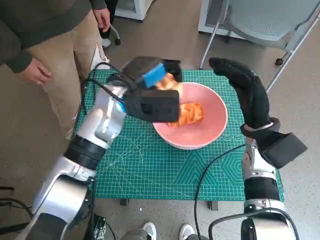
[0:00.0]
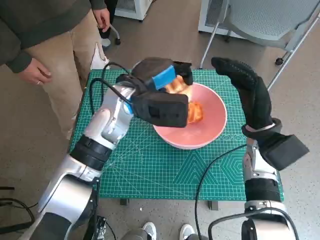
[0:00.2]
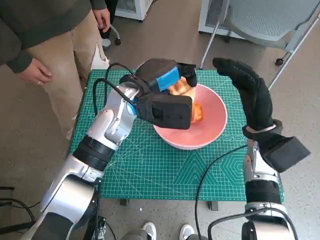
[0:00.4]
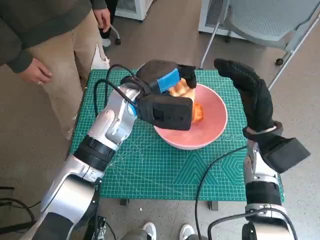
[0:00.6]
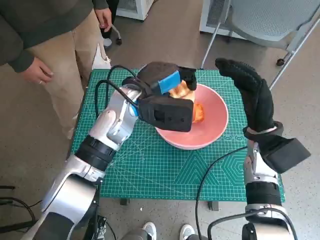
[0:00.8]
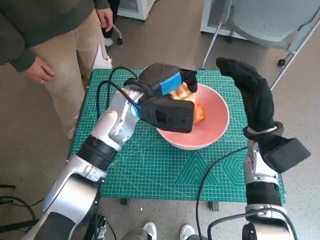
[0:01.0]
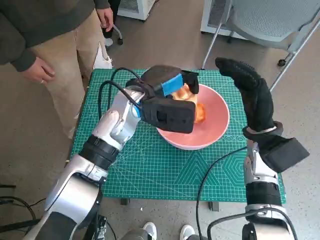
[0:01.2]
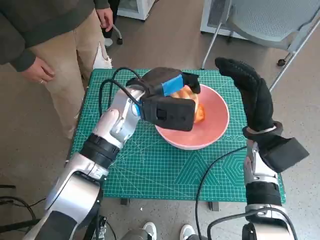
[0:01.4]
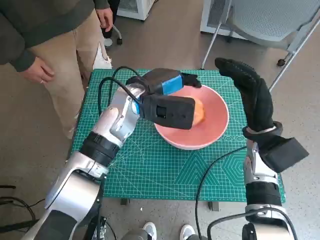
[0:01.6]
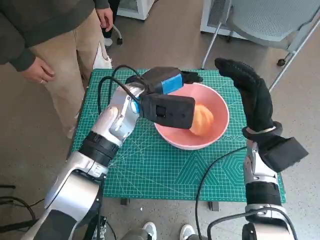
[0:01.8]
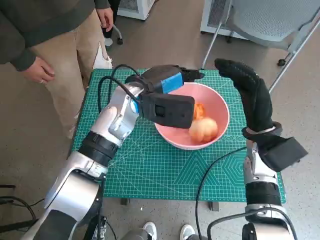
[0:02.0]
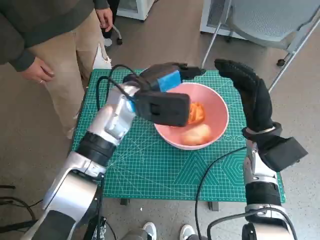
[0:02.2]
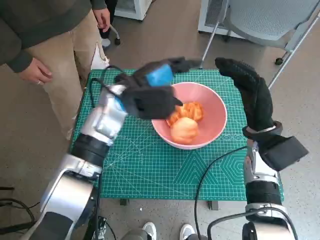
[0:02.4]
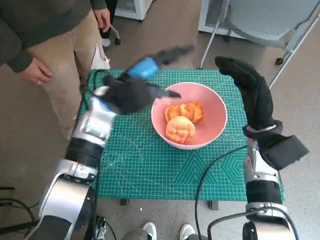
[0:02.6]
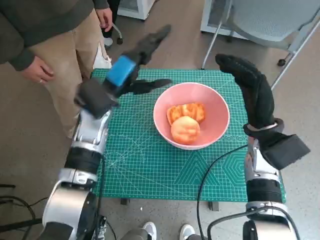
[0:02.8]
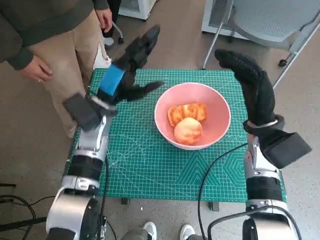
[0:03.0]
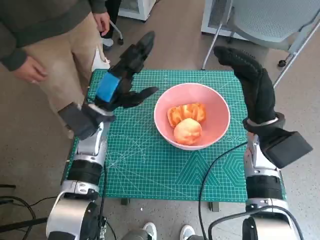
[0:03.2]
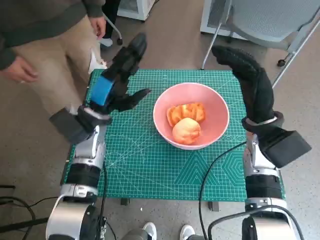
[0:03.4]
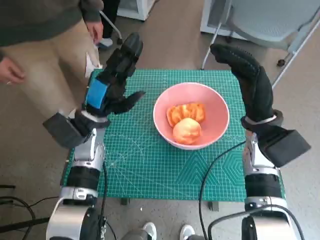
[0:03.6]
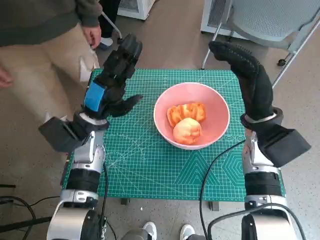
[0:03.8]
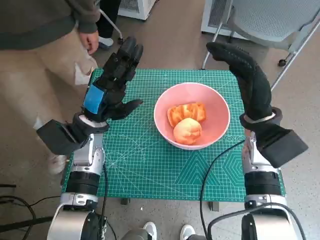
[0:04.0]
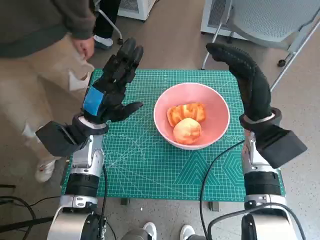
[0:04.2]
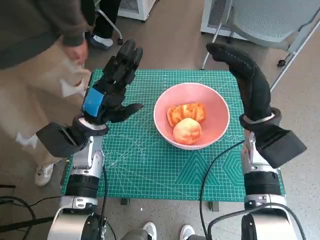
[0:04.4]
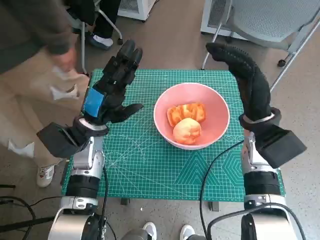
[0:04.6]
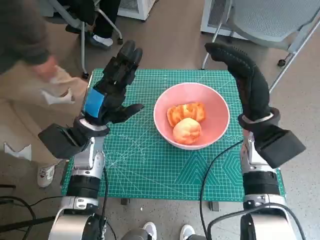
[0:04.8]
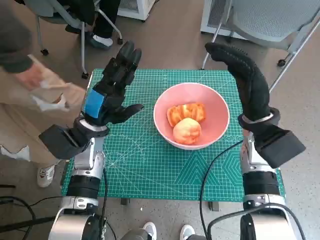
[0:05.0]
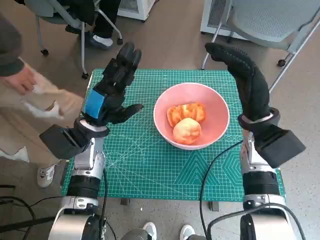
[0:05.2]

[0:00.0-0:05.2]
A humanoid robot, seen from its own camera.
0:01.8 to 0:03.4: The left hand moves to the left and downward, about 10 cm.

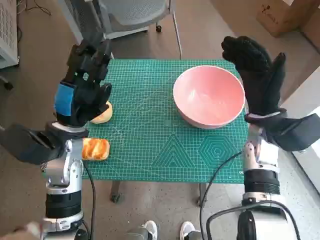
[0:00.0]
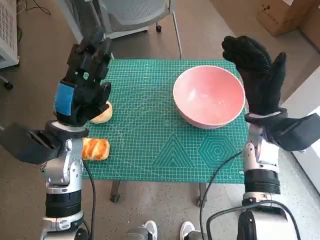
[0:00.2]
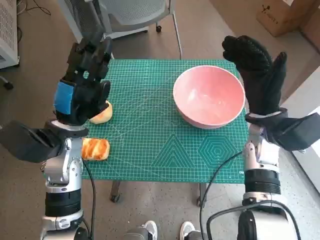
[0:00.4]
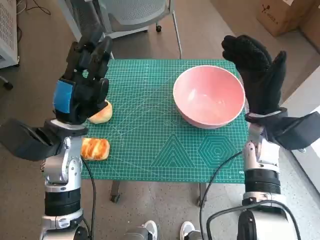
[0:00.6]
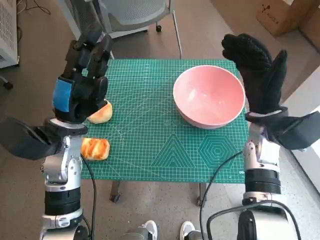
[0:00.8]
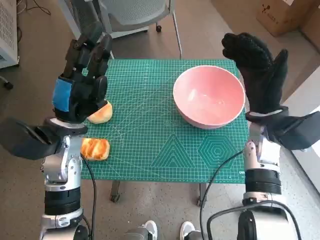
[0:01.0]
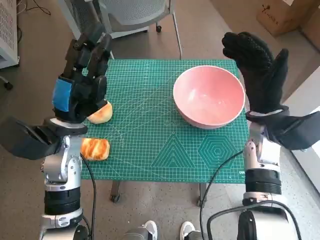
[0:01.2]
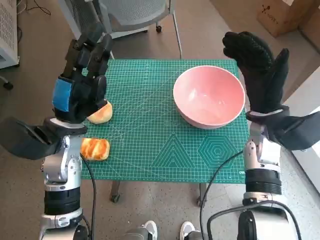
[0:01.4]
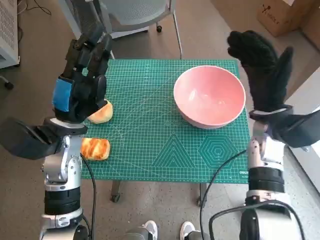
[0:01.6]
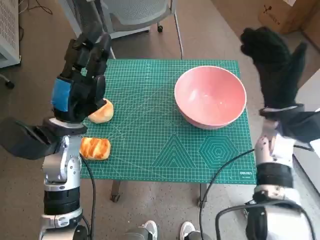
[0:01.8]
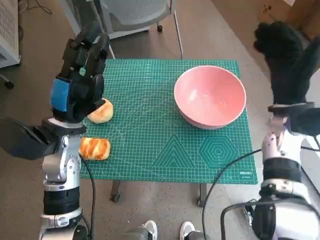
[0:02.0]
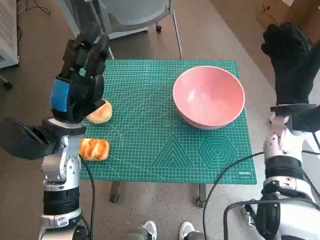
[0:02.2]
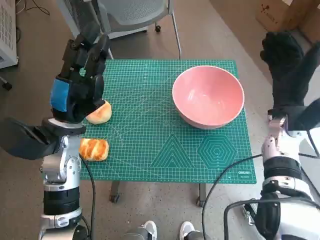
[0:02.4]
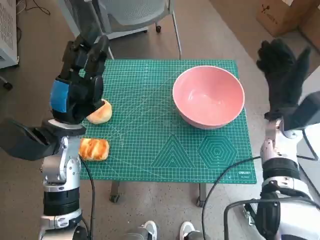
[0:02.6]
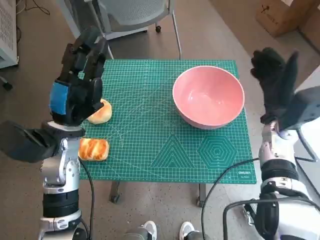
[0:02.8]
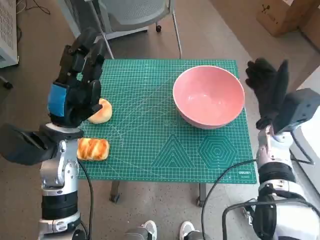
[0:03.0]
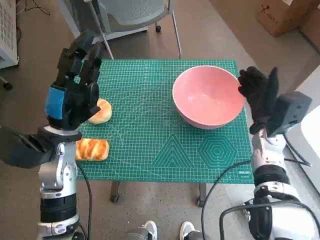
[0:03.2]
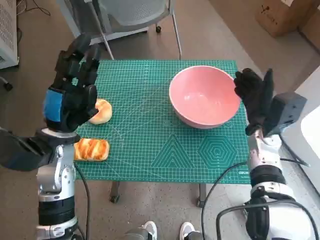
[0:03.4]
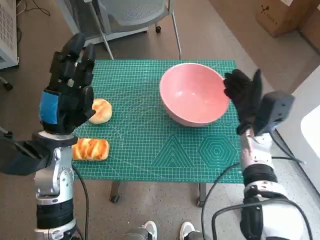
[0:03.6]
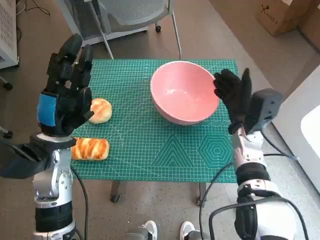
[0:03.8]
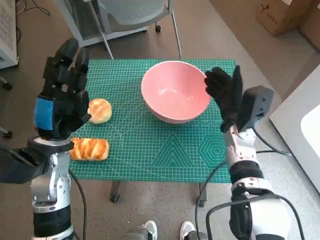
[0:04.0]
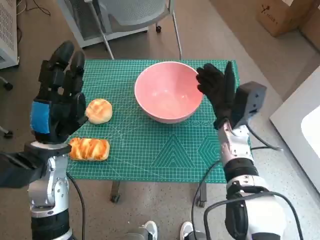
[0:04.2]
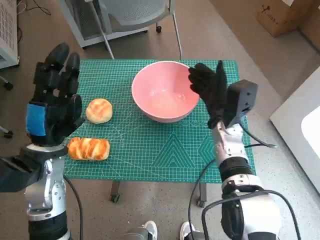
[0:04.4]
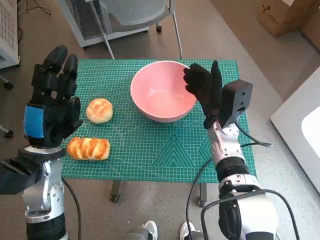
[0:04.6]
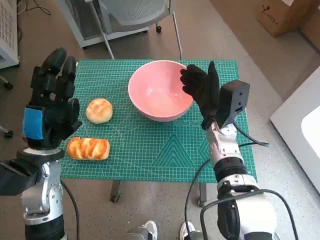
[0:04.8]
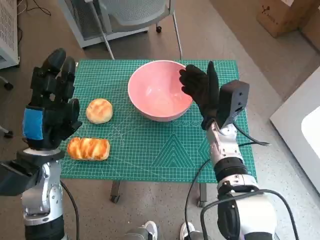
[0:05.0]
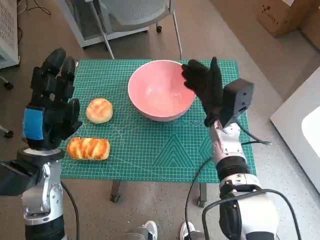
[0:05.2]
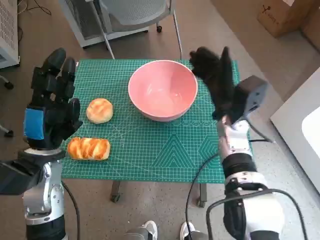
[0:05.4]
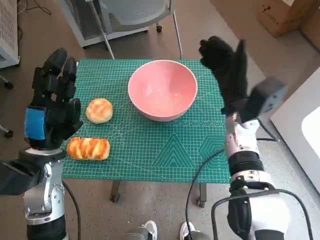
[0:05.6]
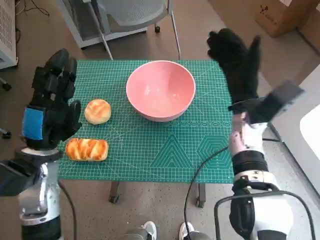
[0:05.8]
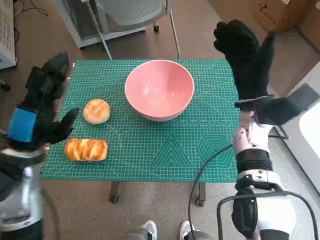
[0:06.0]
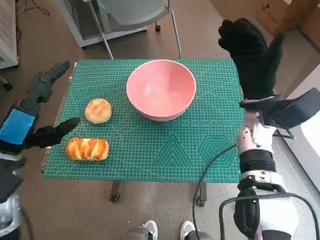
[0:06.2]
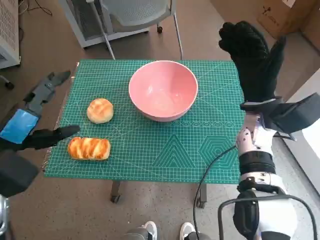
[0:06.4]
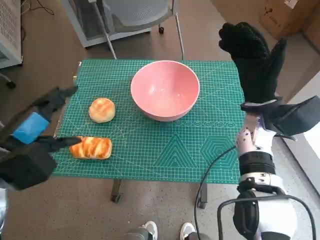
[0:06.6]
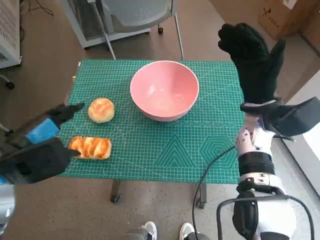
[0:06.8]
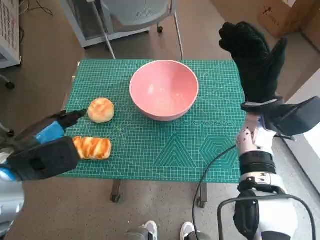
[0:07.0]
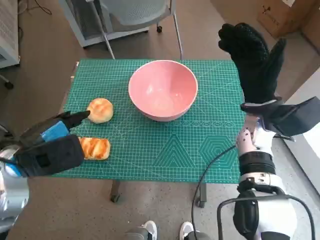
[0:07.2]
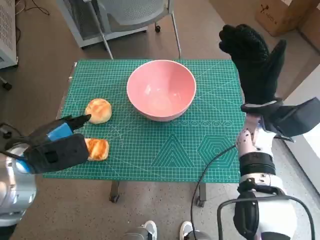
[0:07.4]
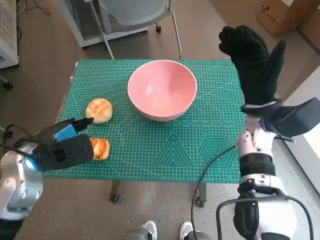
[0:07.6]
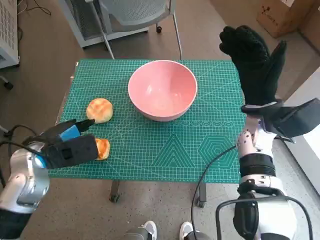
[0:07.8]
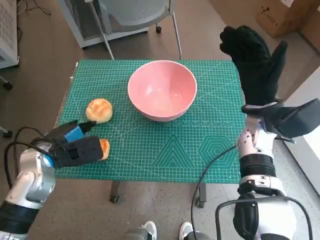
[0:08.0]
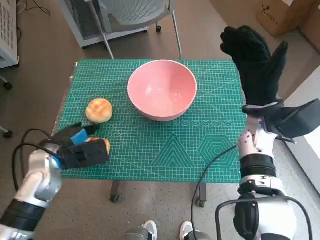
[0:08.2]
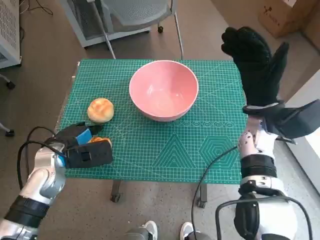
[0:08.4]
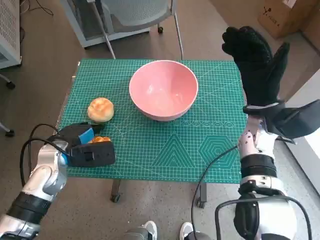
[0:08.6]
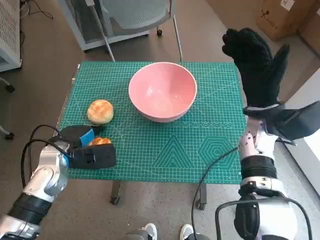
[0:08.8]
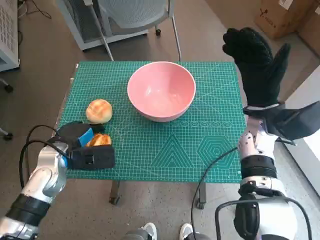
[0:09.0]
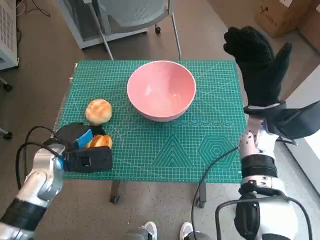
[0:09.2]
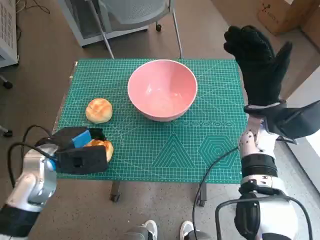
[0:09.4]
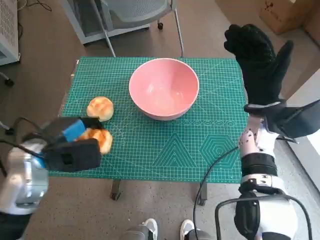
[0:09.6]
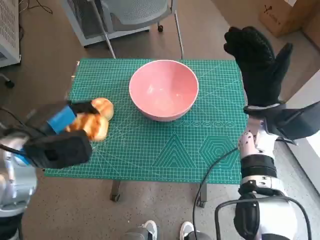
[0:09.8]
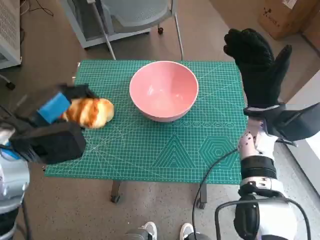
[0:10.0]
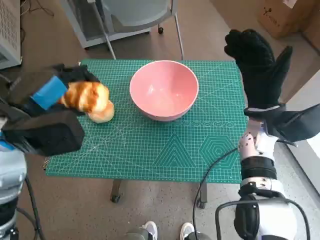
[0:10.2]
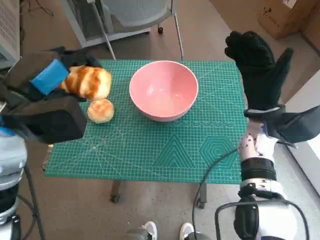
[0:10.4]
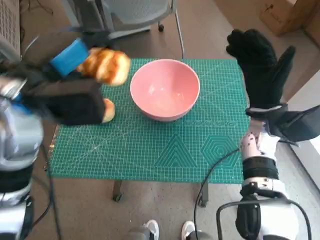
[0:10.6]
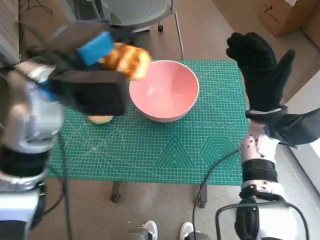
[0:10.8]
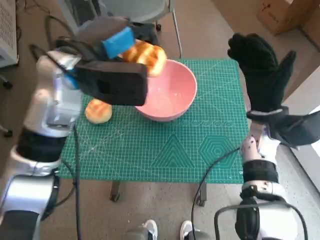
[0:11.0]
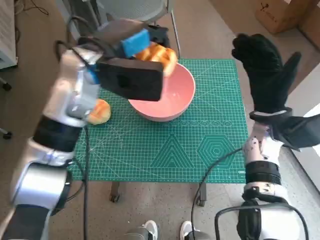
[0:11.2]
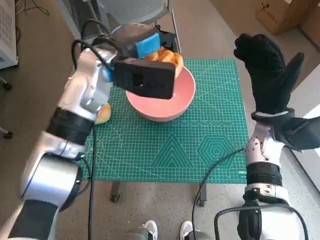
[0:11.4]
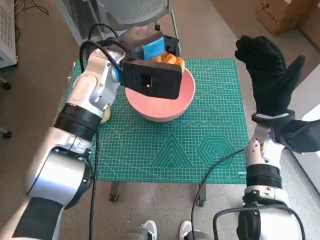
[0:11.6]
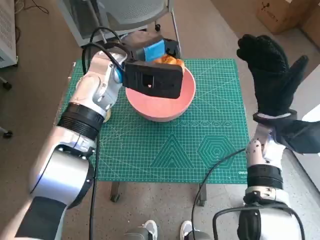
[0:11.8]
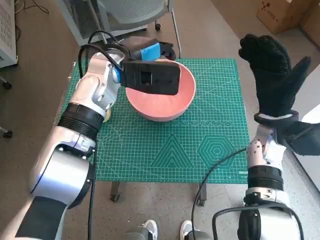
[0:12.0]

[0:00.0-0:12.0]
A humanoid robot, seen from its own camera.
Step, 0:00.0 to 0:05.0: Move the pink bowl to the center of table with right hand.
Step, 0:05.2 to 0:09.0: Grasp the long bread with left hand.
0:01.6 to 0:03.0: The right hand changes place by some 5 cm.
0:03.0 to 0:04.4: The right hand moves to the left, about 10 cm.
0:04.4 to 0:06.0: The right hand shifts some 5 cm upward.
0:07.6 to 0:09.0: The left hand is displaced downward by approximately 5 cm.
0:09.0 to 0:10.4: The left hand heads upward, covering approximately 15 cm.
0:10.4 to 0:12.0: The left hand moves forward and to the right, about 15 cm.

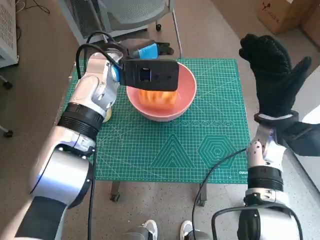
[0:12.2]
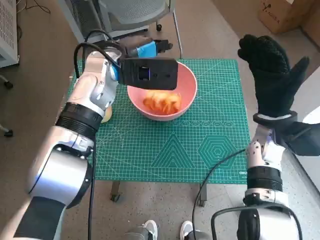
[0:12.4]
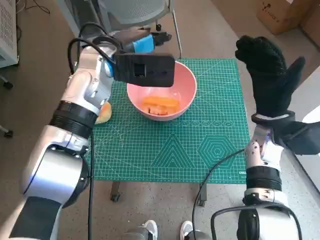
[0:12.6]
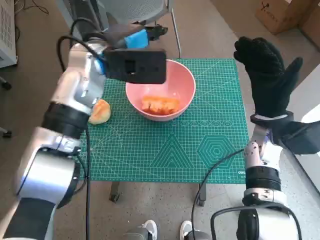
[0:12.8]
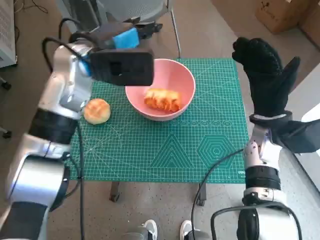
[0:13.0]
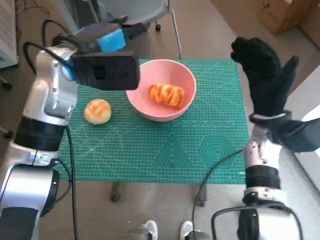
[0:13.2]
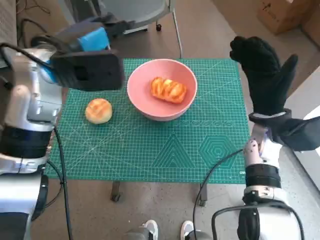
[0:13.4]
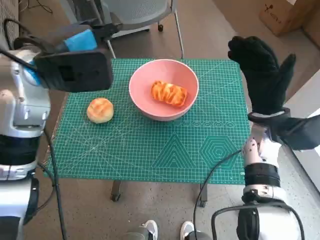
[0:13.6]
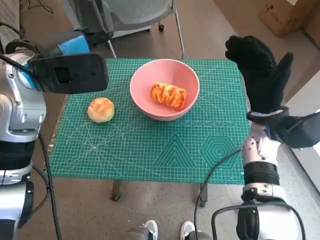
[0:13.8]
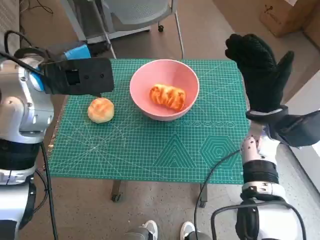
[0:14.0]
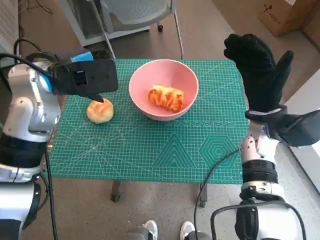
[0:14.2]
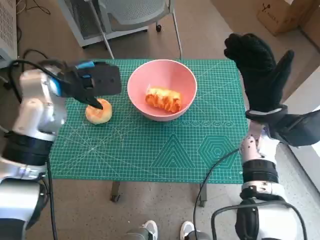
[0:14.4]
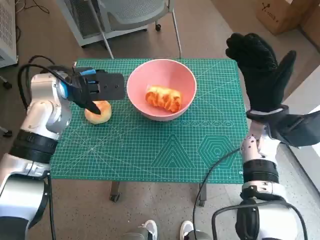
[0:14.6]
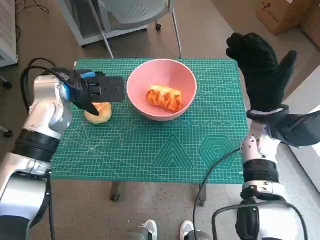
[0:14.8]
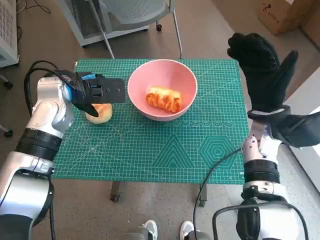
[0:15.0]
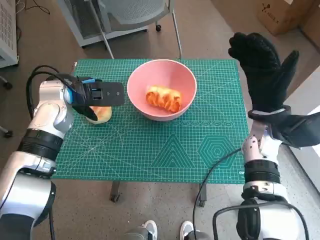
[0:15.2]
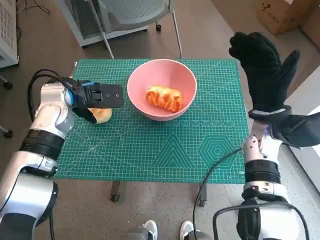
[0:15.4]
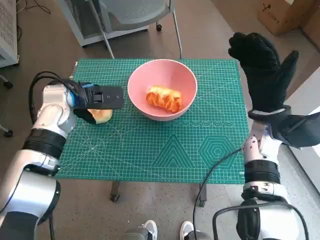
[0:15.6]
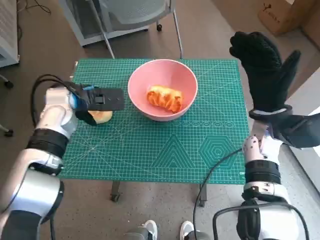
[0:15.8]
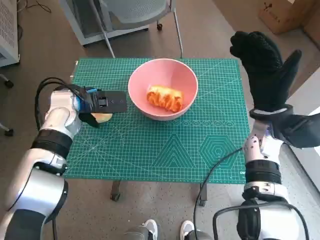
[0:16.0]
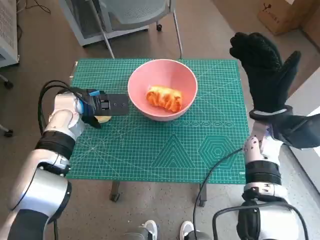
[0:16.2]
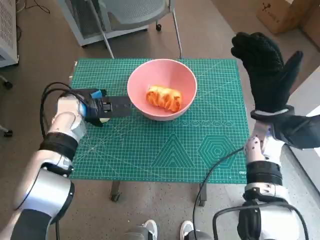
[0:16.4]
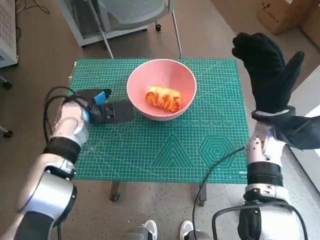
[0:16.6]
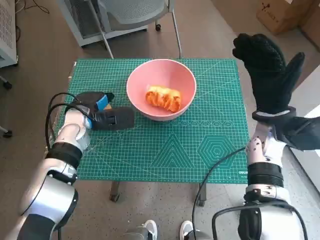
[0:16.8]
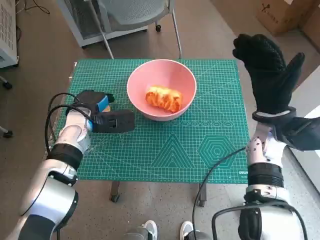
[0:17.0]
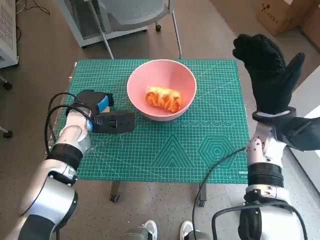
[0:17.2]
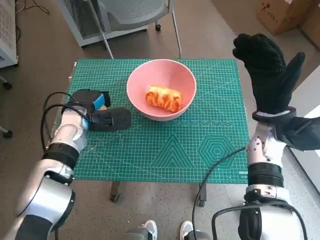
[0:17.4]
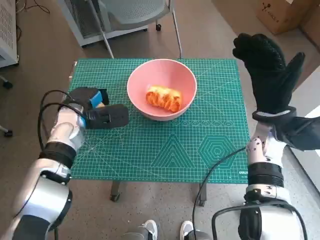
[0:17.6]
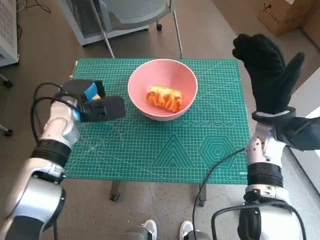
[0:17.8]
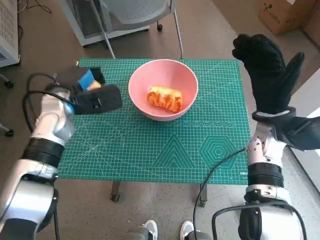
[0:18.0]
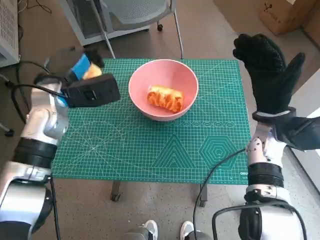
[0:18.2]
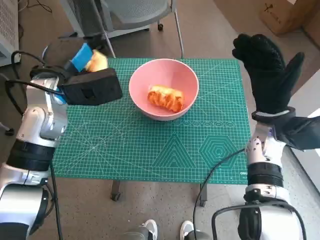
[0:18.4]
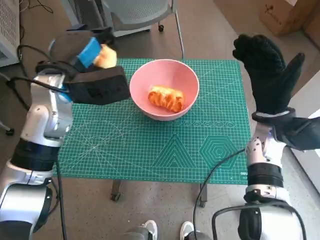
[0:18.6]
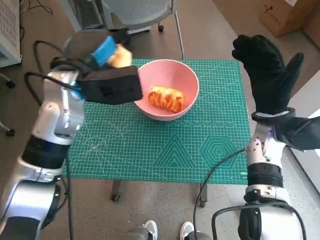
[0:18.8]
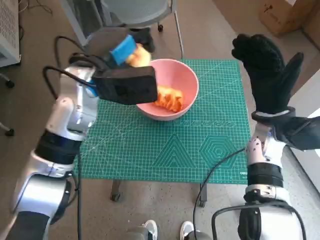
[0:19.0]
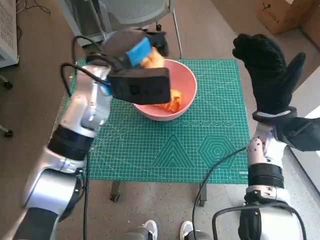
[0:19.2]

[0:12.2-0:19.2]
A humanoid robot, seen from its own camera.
Step, 0:12.8 to 0:17.2: Grasp the round bread with left hand.
0:12.2 to 0:13.6: The left hand goes some 10 cm to the left, backward and upward.
0:13.6 to 0:15.0: The left hand moves downward, roughly 10 cm.
0:15.0 to 0:16.4: The left hand moves downward, roughly 5 cm.
0:16.4 to 0:17.8: There are only small adjustments of the hands.
0:17.8 to 0:19.2: The left hand heads upward and to the right, covering approximately 15 cm.
